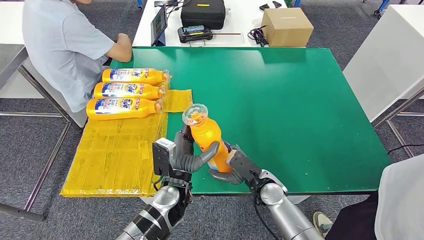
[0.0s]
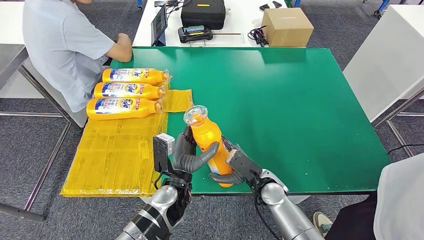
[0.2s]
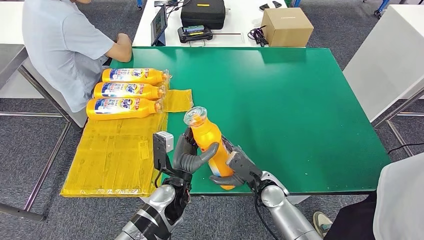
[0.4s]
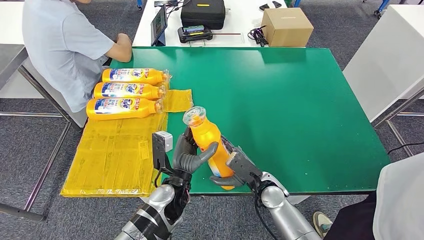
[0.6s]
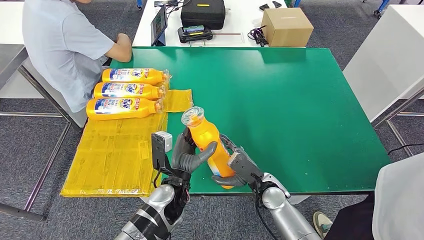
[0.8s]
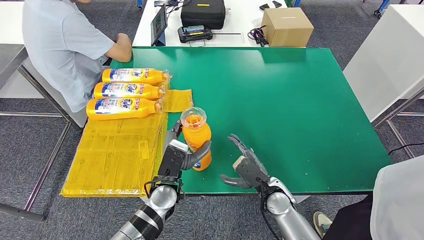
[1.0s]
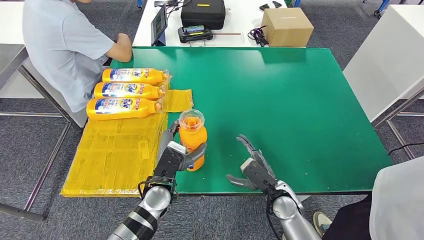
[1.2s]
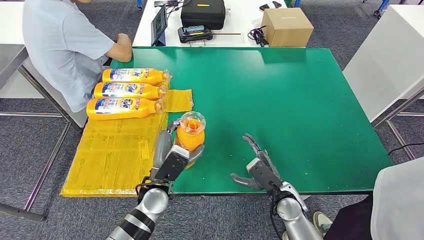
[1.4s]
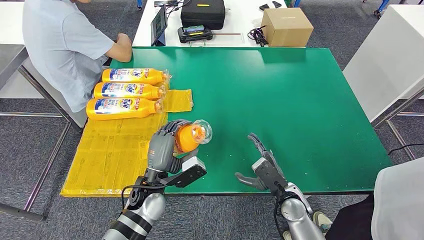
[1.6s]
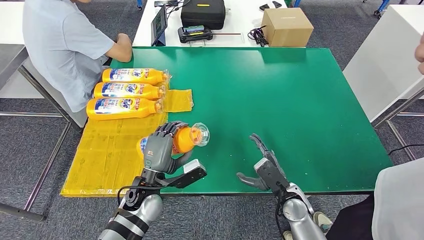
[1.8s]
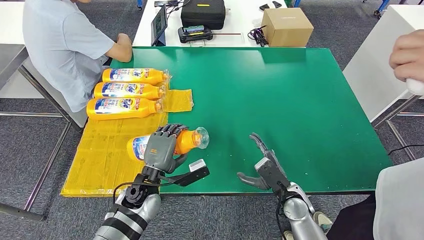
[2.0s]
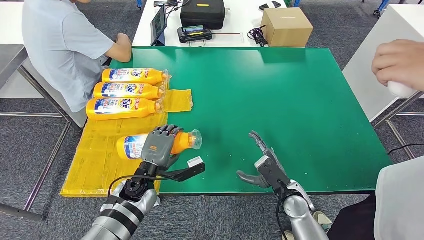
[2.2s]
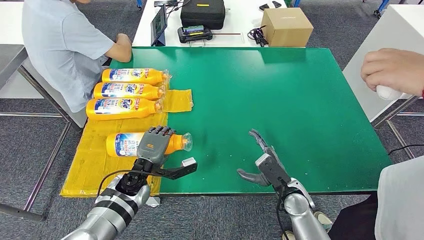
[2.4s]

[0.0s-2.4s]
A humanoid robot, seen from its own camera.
Step, 0.0s to 2.4s: Flip the fast-moving consumer goods bottle to the front side.
1.2s to 2.4s: The left hand heads to the left, covering about 5 cm.
